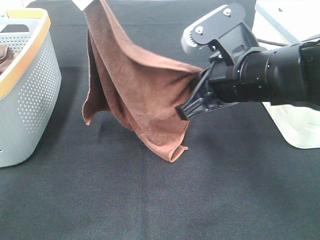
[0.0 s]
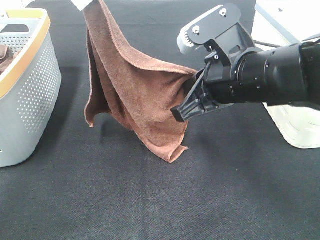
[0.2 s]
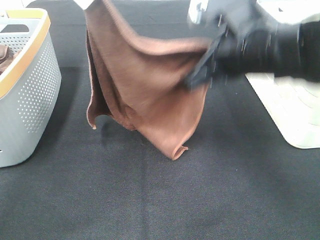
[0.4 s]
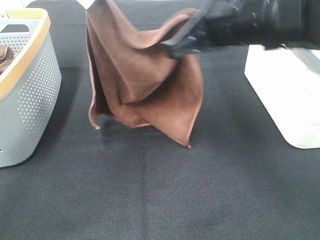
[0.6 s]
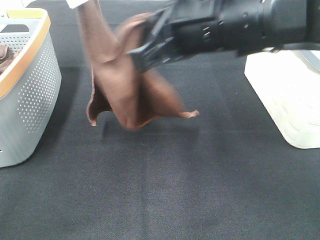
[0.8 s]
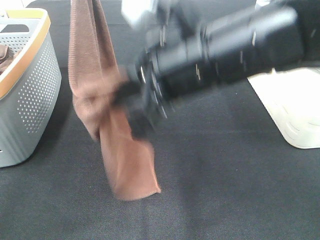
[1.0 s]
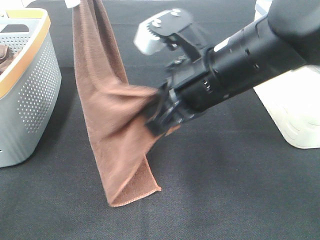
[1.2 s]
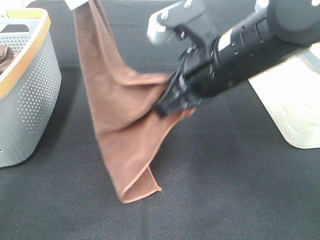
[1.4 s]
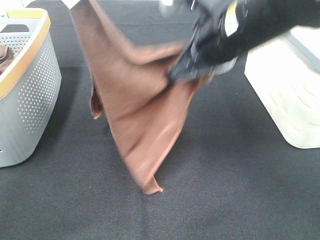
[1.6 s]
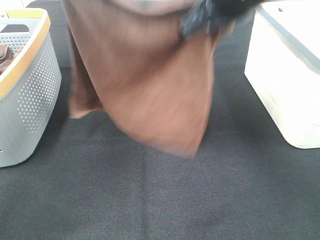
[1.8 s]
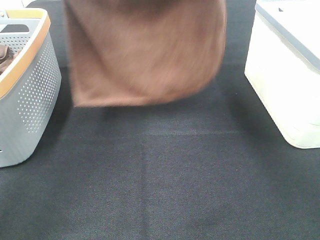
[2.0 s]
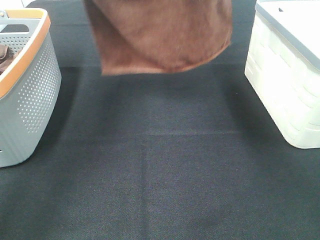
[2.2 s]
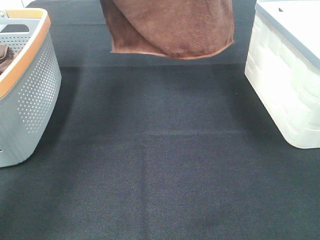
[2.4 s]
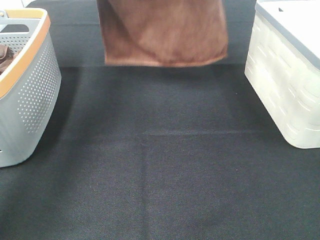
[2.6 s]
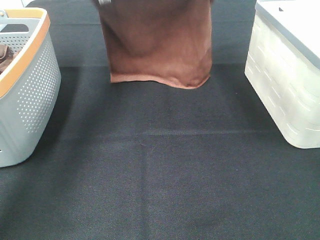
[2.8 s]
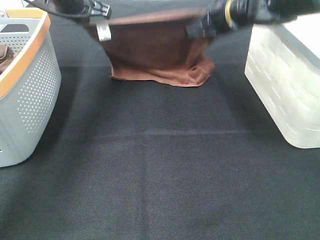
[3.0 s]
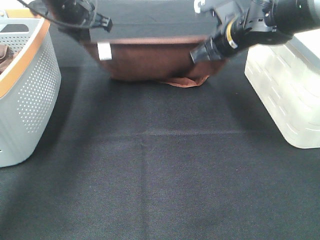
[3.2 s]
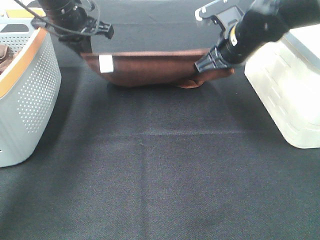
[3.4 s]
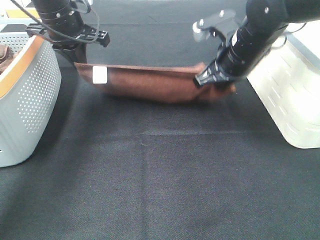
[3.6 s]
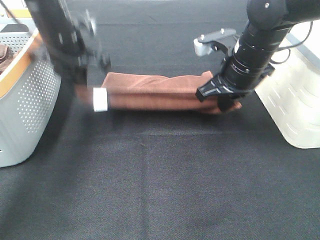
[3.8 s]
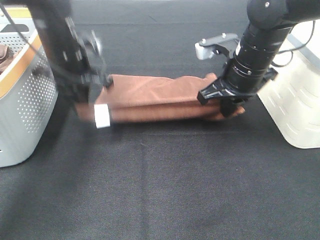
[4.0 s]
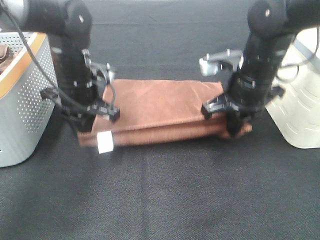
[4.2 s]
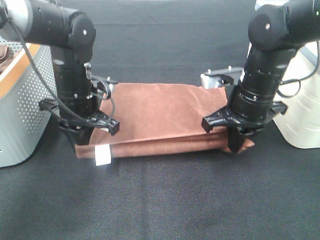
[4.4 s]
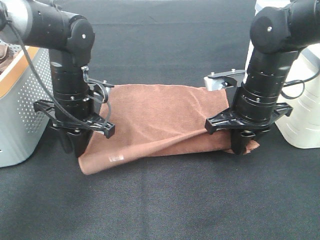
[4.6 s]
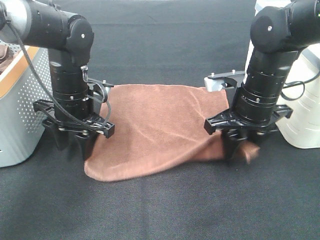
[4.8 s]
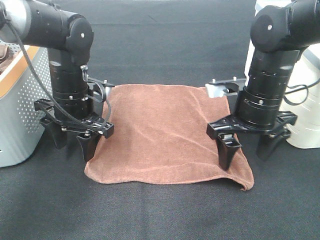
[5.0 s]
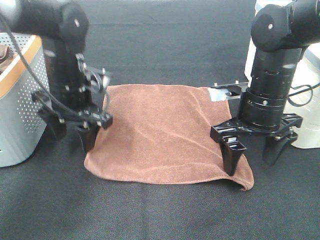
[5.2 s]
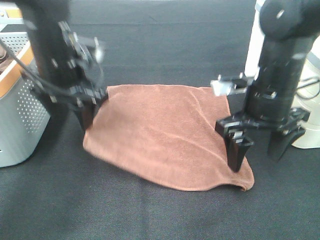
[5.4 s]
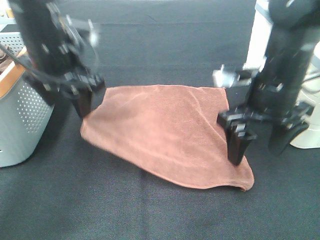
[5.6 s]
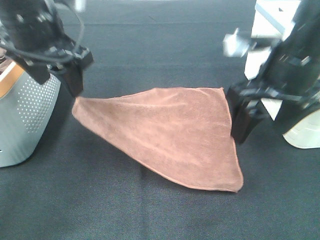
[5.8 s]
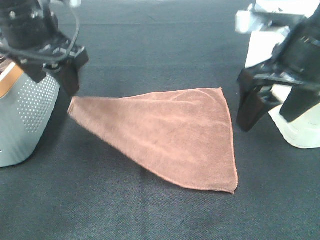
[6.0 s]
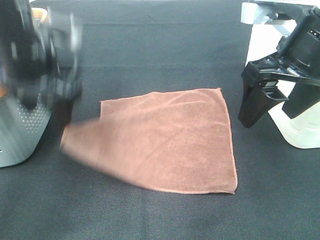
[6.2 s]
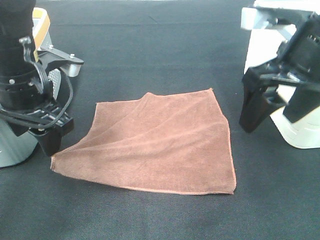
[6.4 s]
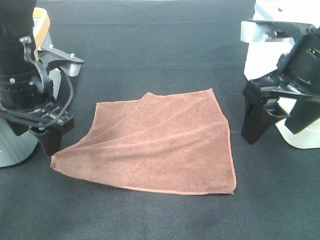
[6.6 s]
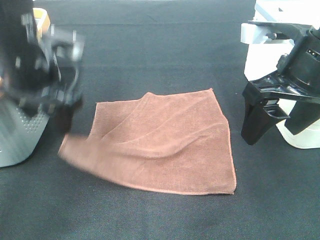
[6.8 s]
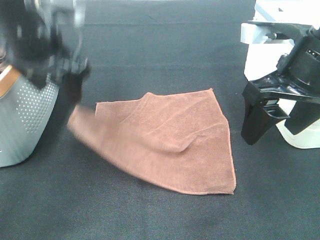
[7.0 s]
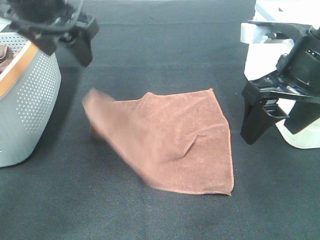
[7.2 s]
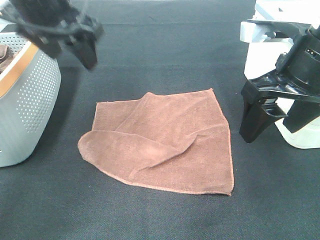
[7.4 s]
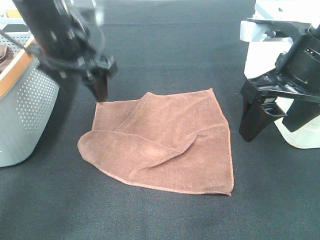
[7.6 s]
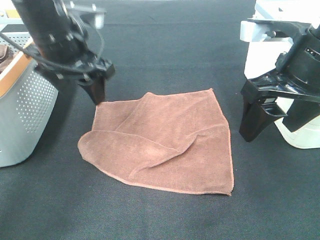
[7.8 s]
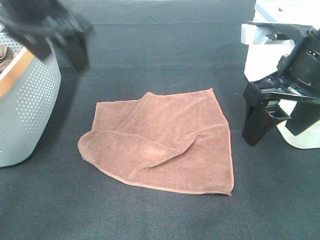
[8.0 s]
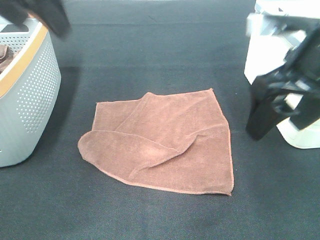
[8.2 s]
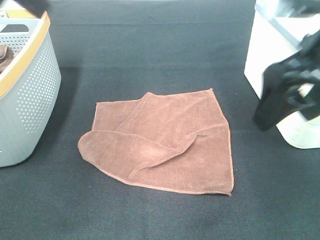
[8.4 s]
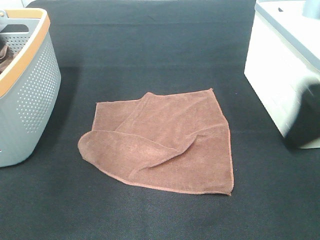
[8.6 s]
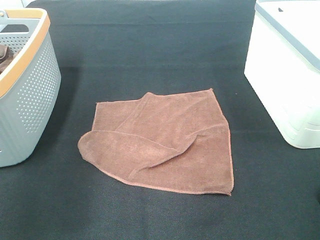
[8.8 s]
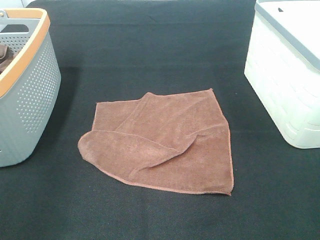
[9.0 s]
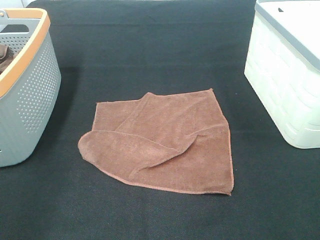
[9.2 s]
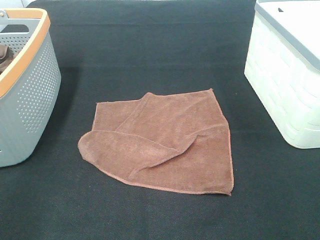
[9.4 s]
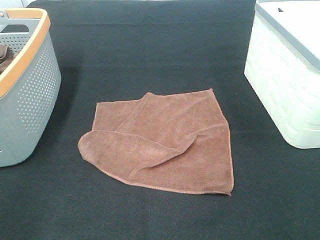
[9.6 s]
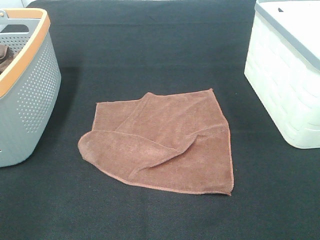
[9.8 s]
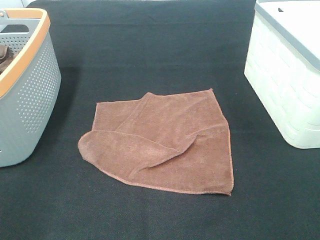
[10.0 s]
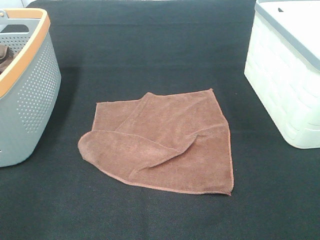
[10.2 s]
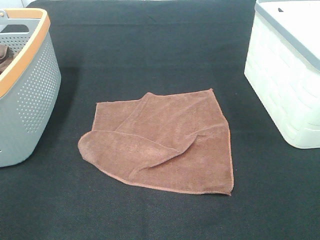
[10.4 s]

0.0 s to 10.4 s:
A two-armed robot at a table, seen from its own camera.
Task of the whole recording: Remove the towel and place it.
Step, 0.0 to 2.2 s: Left hand: spread the brown towel flat on the table.
1.4 to 3.0 s: The right gripper shifts approximately 20 cm forward. The left gripper travels downward and forward by roughly 20 cm.
3.0 to 4.4 s: The right gripper heads backward and downward, covering approximately 15 cm. The left gripper moves downward and backward, about 20 cm.
4.4 to 6.0 s: The right gripper moves upward and backward, approximately 15 cm, and opens its fingers, while the left gripper heads upward, covering some 15 cm, and opens its fingers.
6.0 to 7.4 s: The left gripper reaches roughly 5 cm downward, then returns.
7.4 to 9.0 s: The right gripper goes some 20 cm backward and to the right, while the left gripper goes roughly 30 cm backward and to the left.

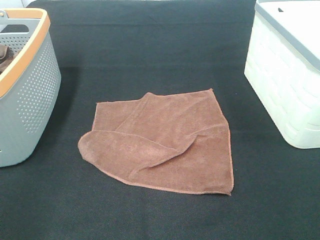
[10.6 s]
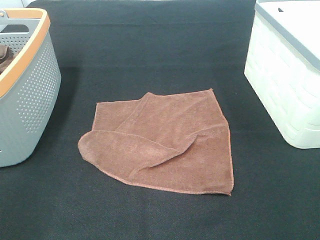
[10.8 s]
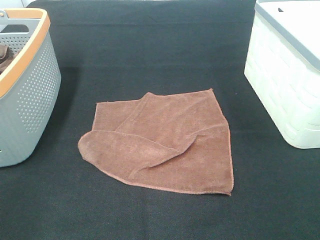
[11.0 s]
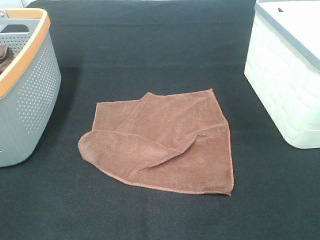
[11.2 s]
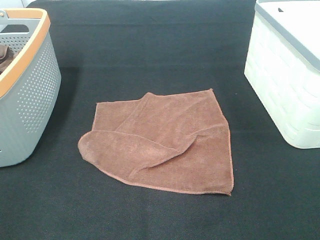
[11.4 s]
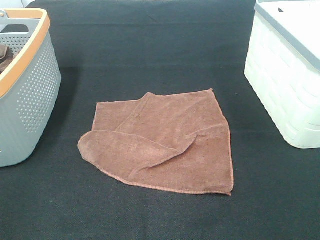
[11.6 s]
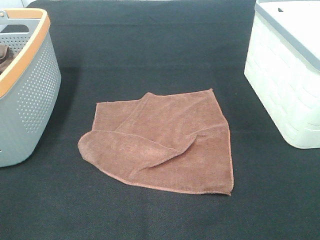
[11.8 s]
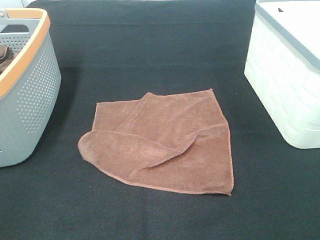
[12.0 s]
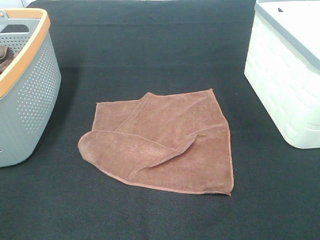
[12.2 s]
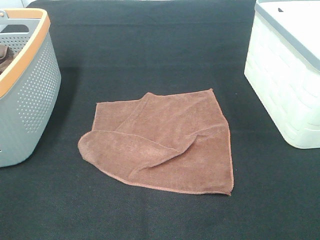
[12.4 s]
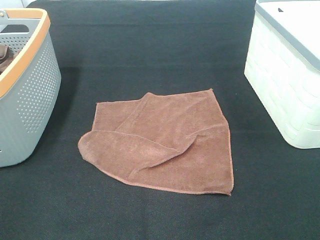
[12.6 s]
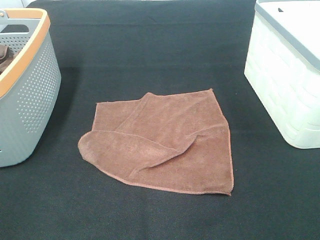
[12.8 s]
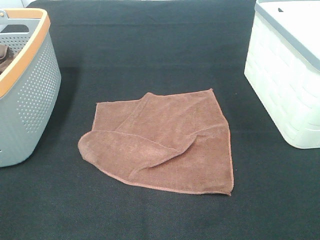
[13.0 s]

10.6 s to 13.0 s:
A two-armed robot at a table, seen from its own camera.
Task of the whole recording: Remove the towel and place it.
11.8 to 13.0 s: Neither gripper changes place.

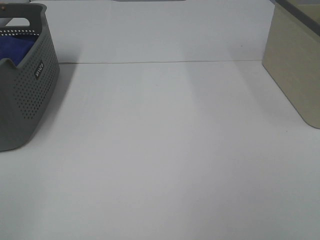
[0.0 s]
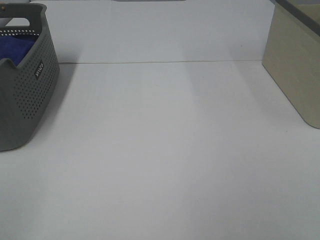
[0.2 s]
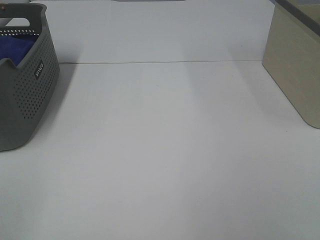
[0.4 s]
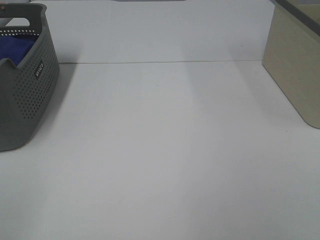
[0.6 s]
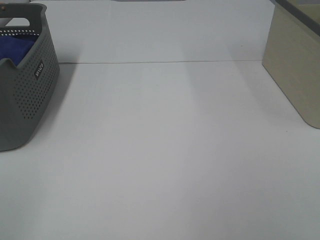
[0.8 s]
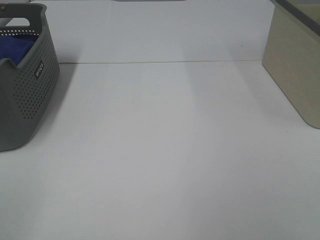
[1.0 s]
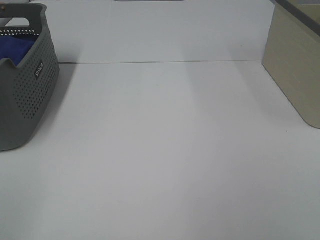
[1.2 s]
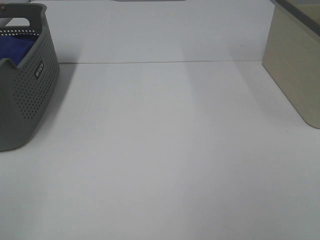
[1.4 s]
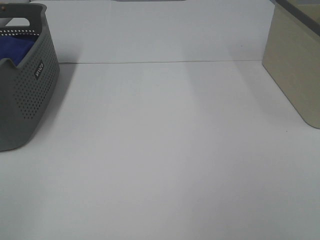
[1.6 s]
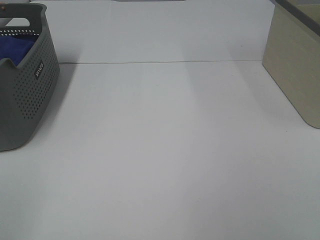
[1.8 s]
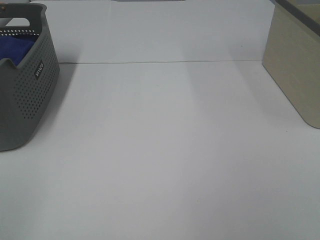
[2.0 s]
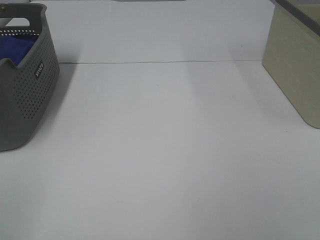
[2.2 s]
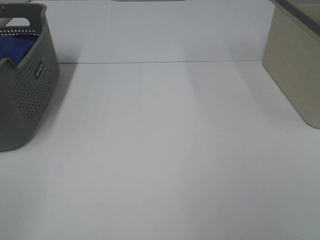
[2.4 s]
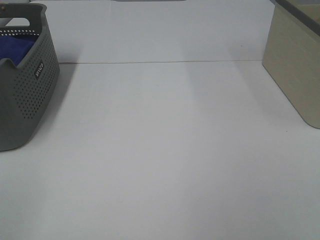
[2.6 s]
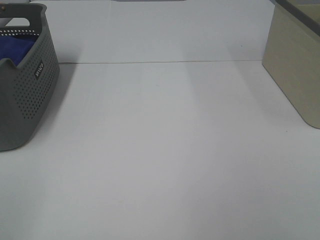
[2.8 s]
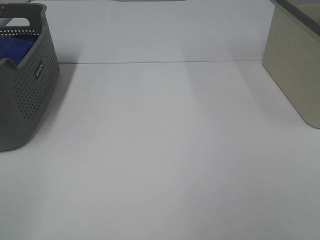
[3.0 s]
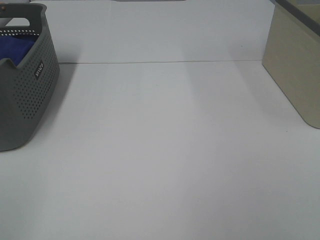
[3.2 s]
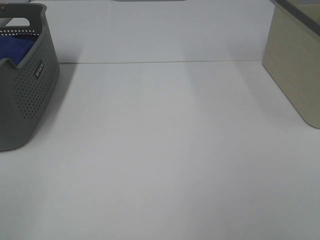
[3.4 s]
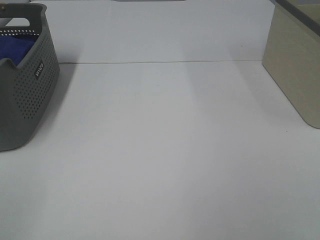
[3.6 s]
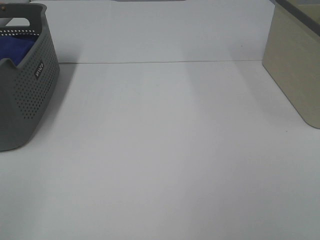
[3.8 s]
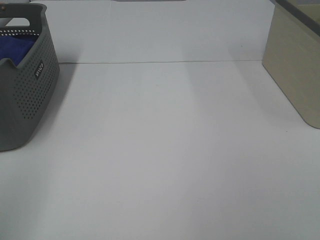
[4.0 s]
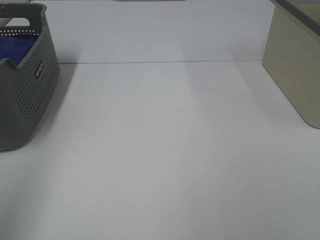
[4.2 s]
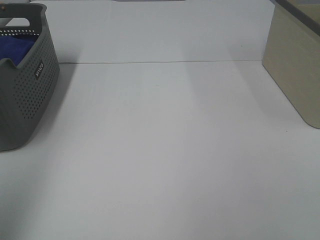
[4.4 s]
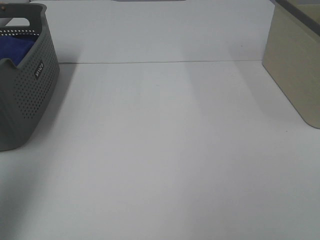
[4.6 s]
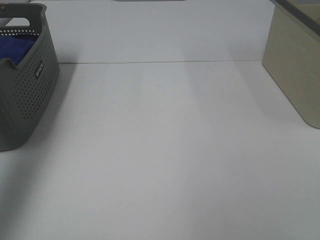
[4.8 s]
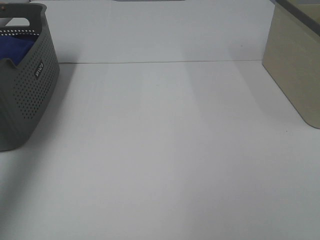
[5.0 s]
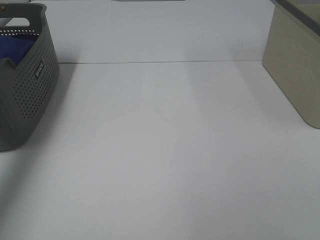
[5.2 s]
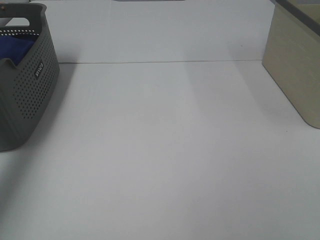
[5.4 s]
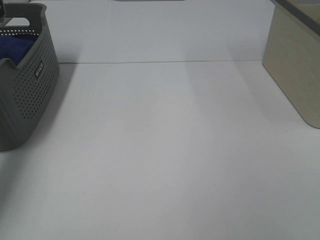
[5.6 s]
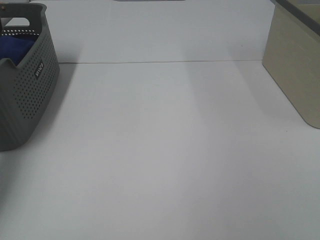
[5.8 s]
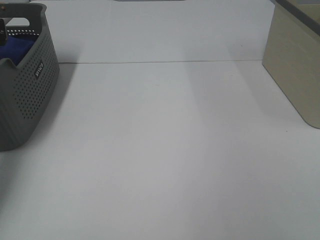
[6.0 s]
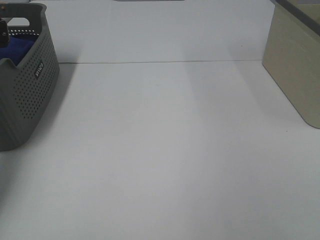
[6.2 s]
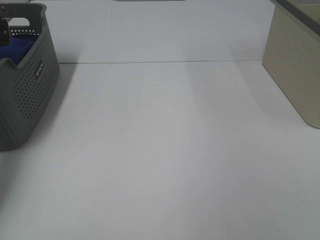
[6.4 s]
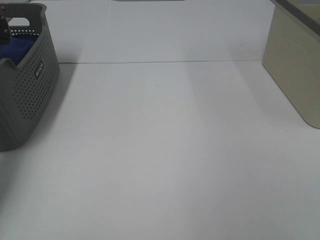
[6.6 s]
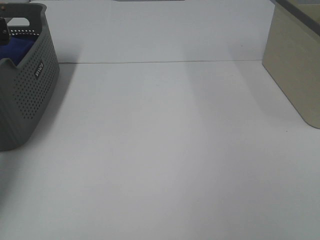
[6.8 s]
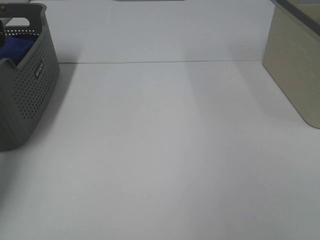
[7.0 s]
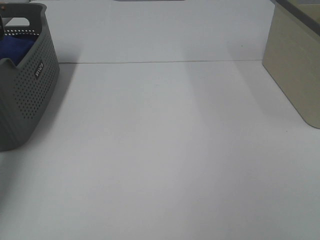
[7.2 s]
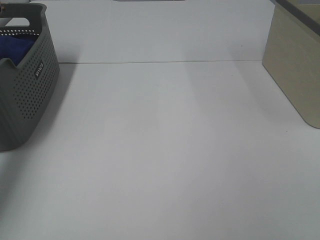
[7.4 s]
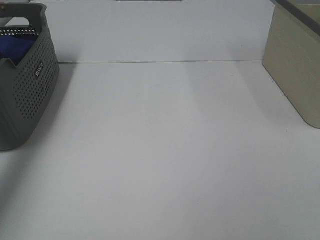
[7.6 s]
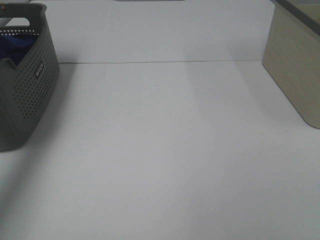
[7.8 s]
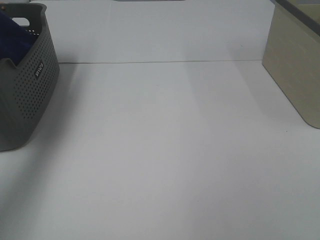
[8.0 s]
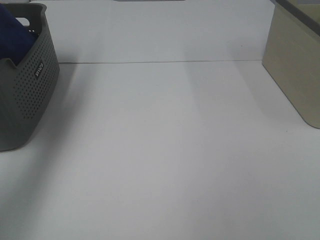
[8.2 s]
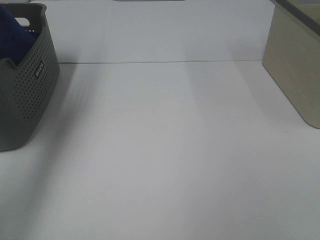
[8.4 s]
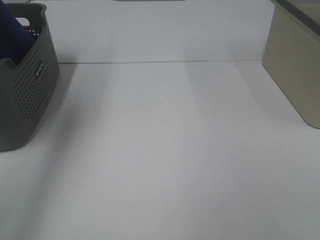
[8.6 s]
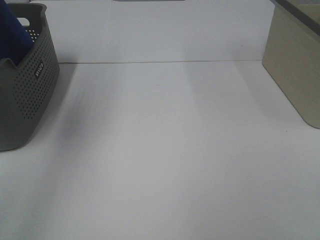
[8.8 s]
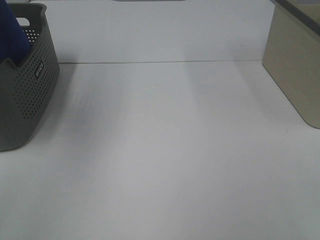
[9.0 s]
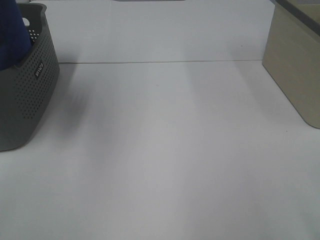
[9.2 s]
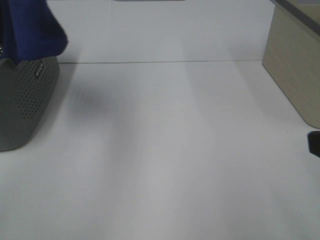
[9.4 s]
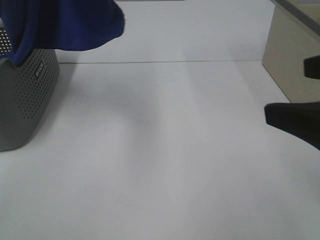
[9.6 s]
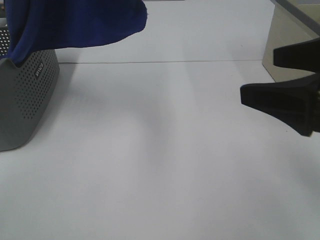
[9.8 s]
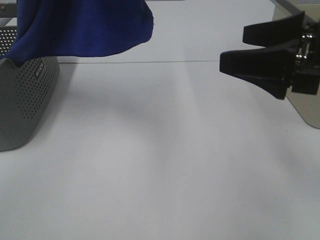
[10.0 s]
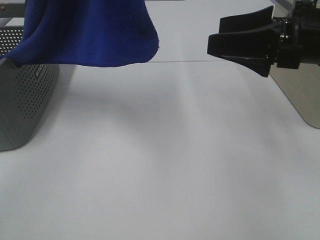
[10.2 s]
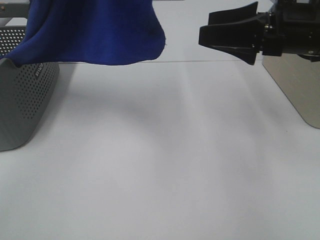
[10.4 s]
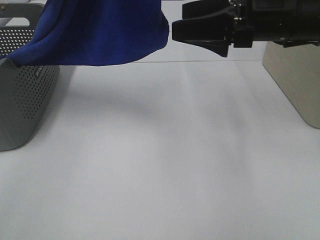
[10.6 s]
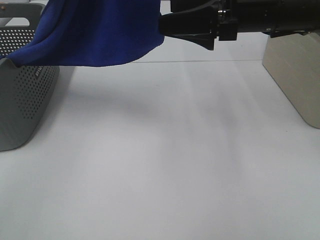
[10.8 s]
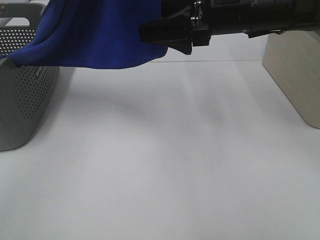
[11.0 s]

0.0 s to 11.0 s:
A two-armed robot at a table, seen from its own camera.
Task of the whole recording: Remove the towel and place it.
0.0 to 3.2 s: The two grippers keep their place.
3.2 to 4.8 s: The left gripper moves forward and upward, some 30 cm.
4.8 to 6.2 s: The left gripper is displaced downward and forward by roughly 30 cm.
6.2 to 7.8 s: The left gripper is displaced upward by roughly 15 cm, and closes its fingers.
7.8 to 9.4 s: The right gripper moves forward, some 10 cm. The left gripper heads to the right, upward and backward, covering about 25 cm.
9.4 to 11.0 s: The right gripper goes some 30 cm forward and to the left, while the left gripper travels to the right by approximately 10 cm.
